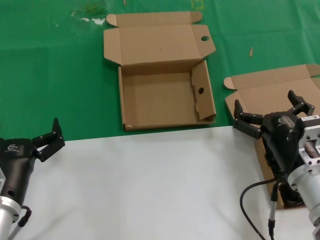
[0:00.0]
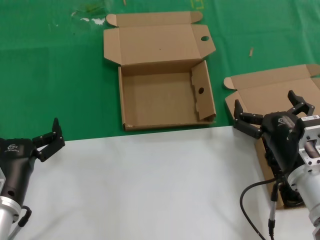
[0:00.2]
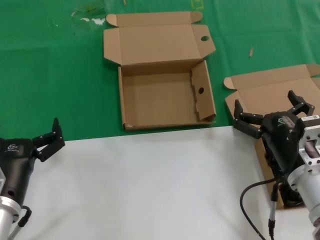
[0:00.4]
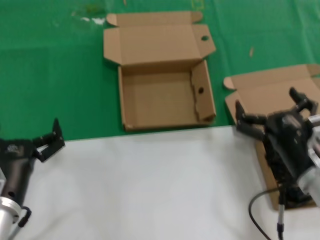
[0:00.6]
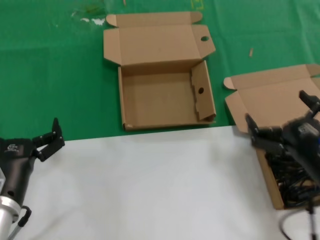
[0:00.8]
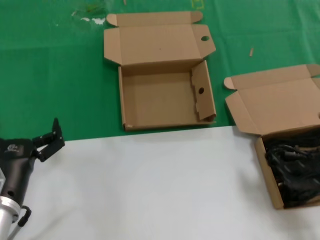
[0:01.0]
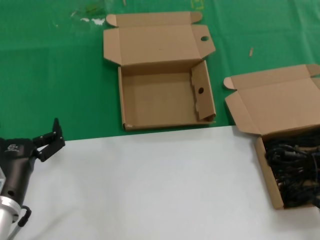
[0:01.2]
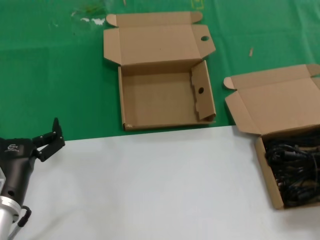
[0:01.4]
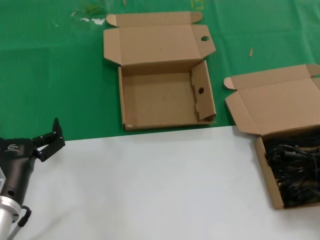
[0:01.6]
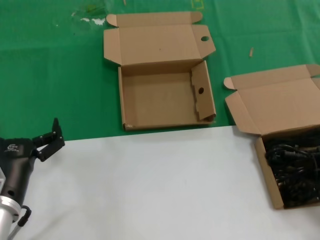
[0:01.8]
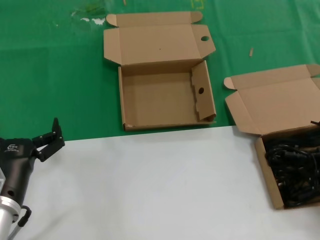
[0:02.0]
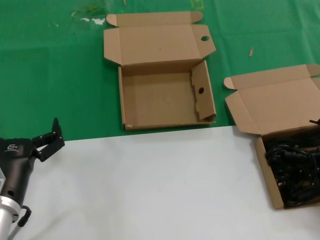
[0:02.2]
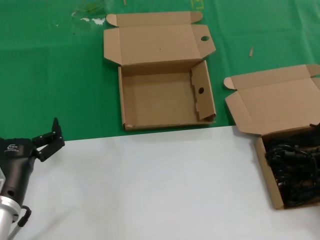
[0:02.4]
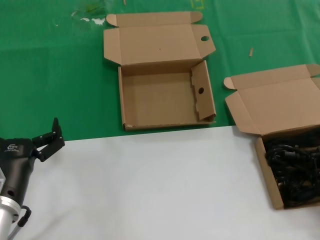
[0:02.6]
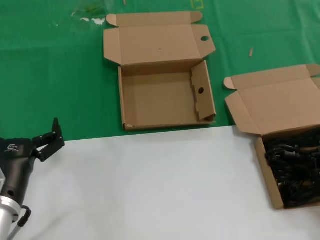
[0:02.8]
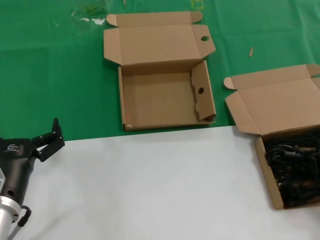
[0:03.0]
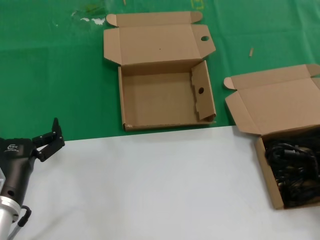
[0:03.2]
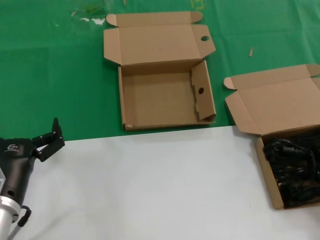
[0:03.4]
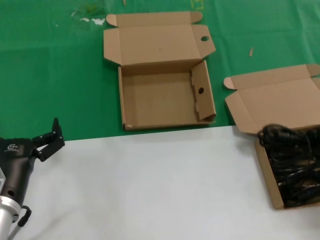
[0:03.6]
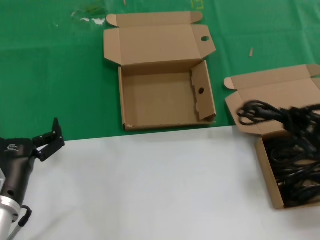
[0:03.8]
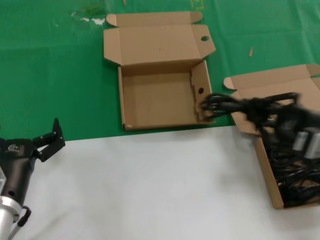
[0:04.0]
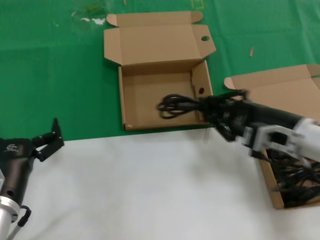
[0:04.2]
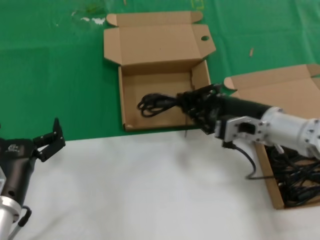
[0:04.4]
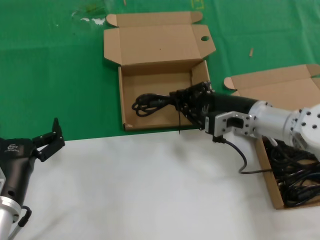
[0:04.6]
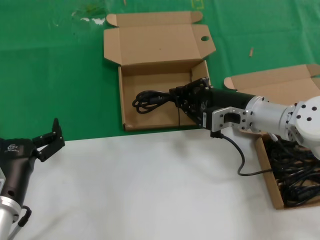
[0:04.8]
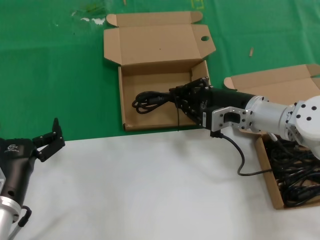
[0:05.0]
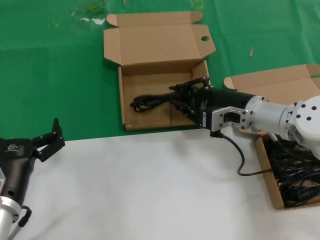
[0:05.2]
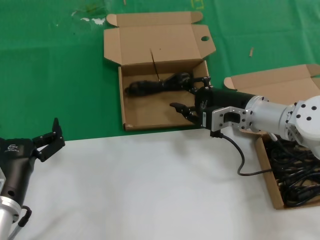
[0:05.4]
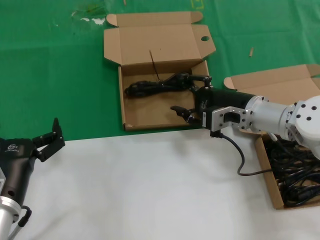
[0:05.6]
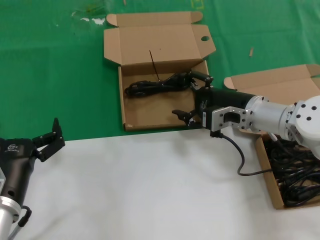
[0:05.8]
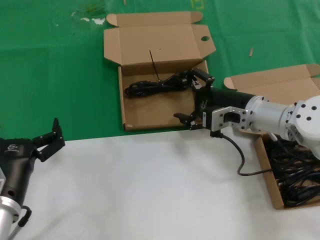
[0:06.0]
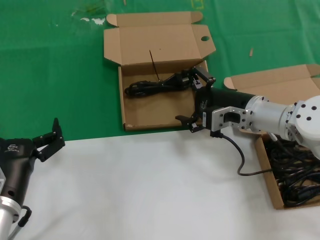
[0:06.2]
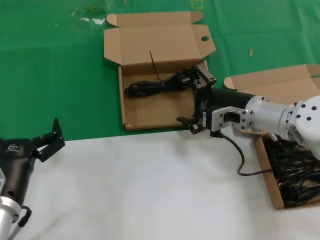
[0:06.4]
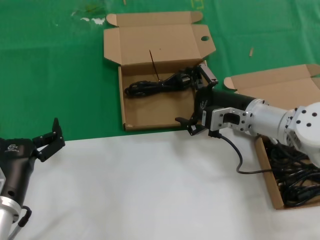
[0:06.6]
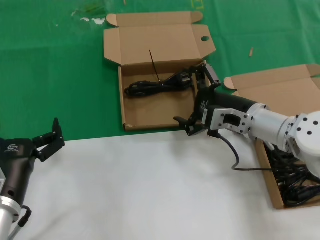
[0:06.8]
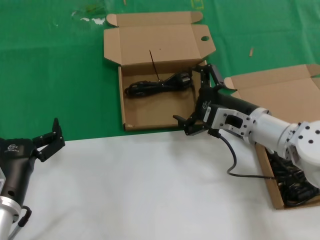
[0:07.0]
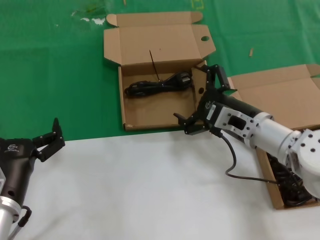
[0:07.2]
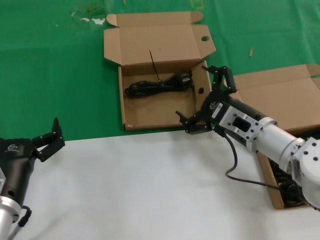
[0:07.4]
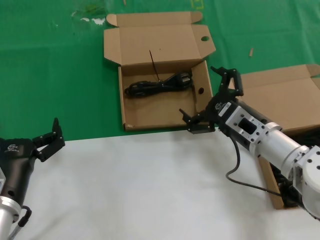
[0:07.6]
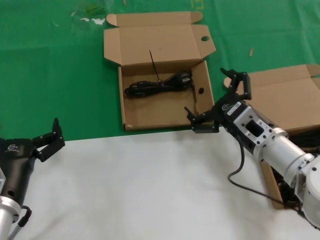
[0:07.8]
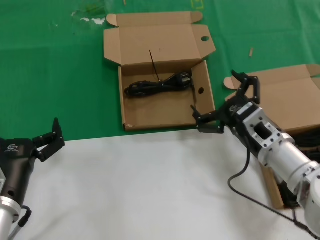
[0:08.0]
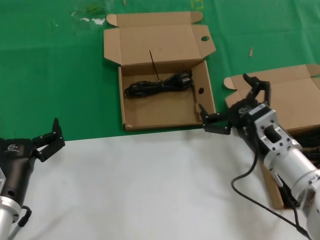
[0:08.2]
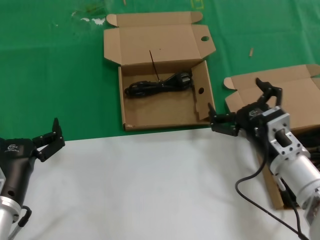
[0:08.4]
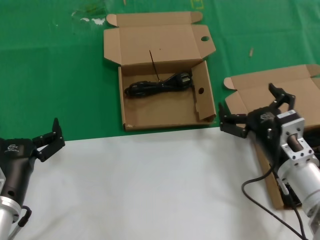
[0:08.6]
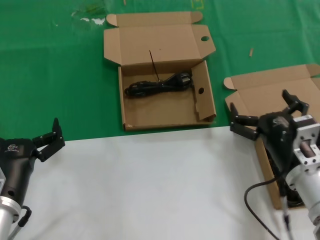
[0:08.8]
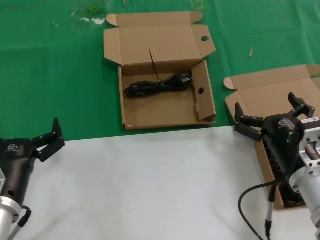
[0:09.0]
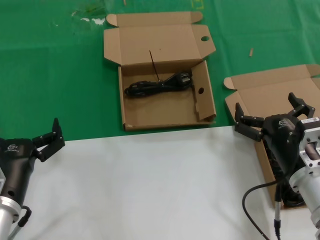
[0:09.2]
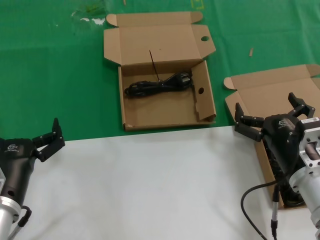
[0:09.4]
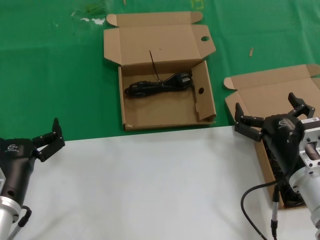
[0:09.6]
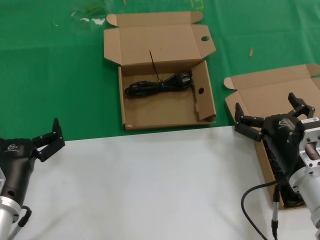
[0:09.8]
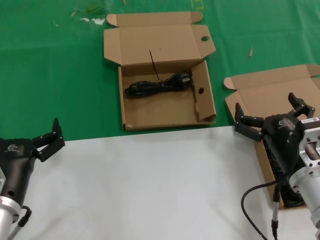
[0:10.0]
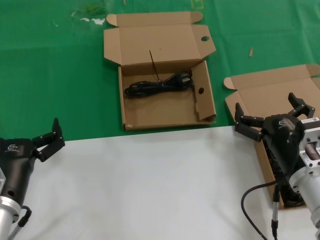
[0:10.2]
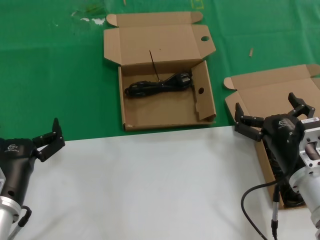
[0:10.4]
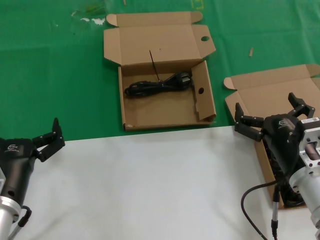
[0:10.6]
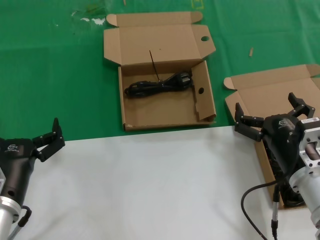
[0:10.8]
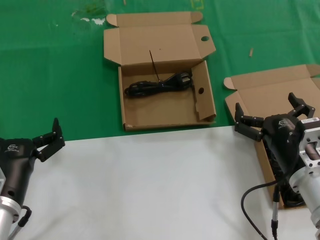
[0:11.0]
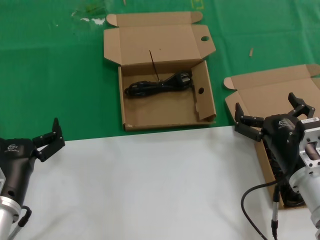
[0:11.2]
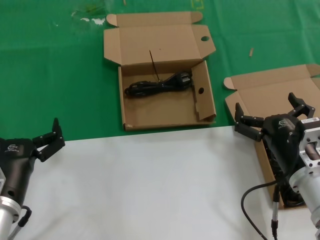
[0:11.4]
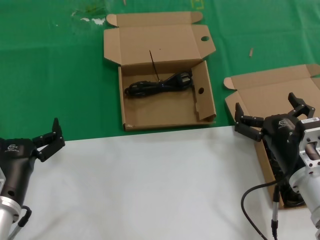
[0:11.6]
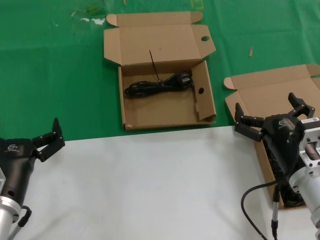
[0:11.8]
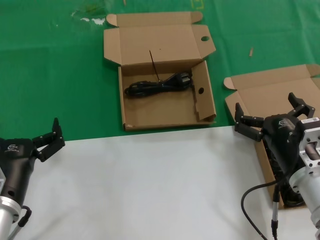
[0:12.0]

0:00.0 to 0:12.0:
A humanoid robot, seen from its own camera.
Task of the whole recording: take the parts from the box containing them and put them into an empty box.
Step, 0:00.0 to 0:03.2: Grasp the data cable.
Step, 0:03.4 to 0:06.4: Place the data cable in the another box.
0:00.0 to 0:01.6: The right hand shifts approximately 20 cm to the right and backward.
0:03.0 to 0:04.4: The right hand is displaced to the left and forward by some 25 cm.
0:04.4 to 0:06.0: The right hand shifts roughly 5 cm forward.
0:06.0 to 0:07.6: The right hand is displaced backward by approximately 5 cm.
0:07.6 to 0:09.0: The right hand moves backward, roughly 10 cm.
0:09.0 to 0:12.0: Both hands stay put.

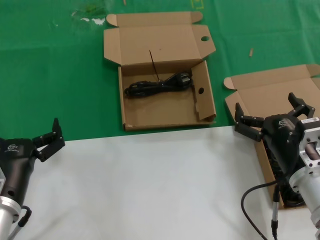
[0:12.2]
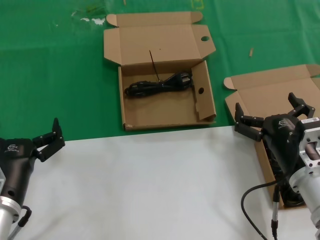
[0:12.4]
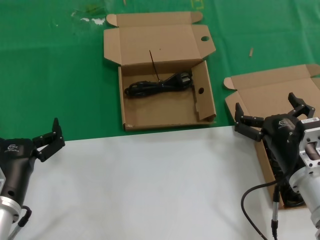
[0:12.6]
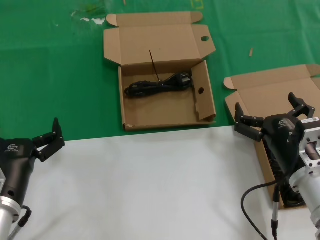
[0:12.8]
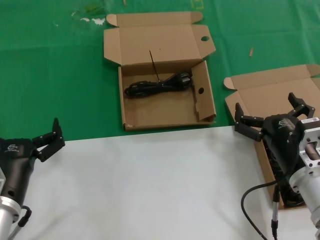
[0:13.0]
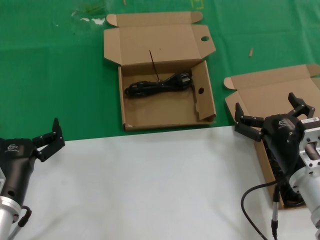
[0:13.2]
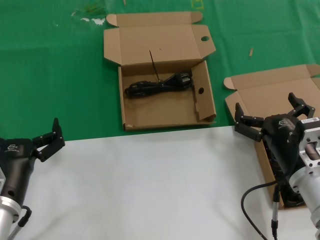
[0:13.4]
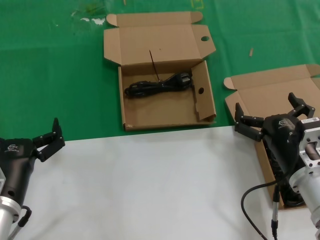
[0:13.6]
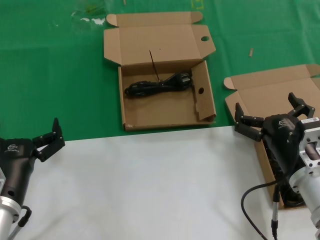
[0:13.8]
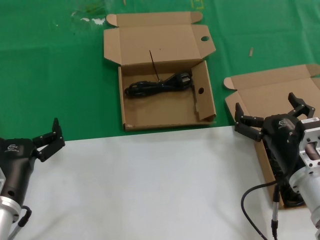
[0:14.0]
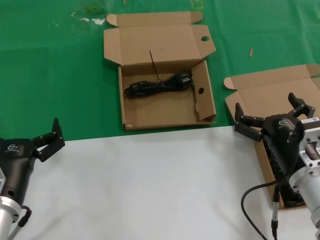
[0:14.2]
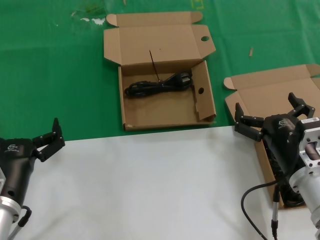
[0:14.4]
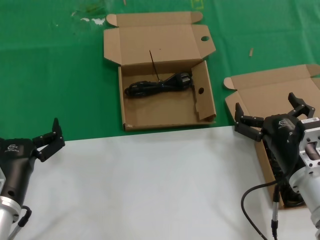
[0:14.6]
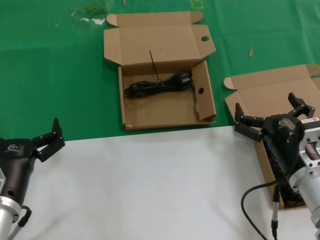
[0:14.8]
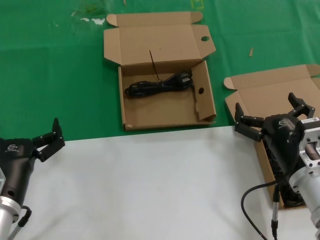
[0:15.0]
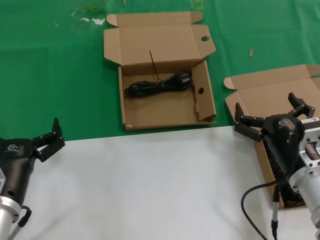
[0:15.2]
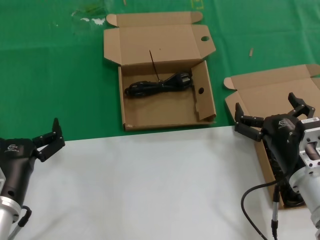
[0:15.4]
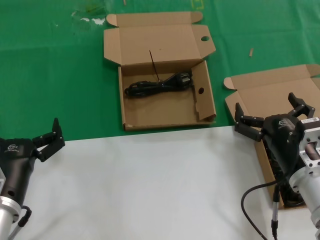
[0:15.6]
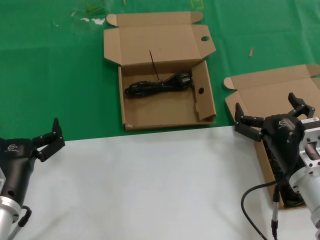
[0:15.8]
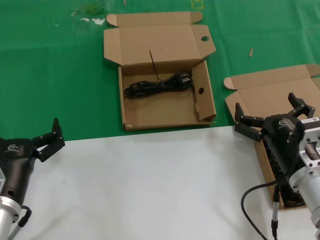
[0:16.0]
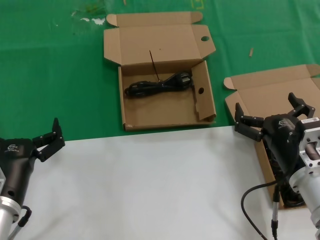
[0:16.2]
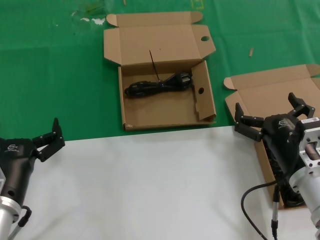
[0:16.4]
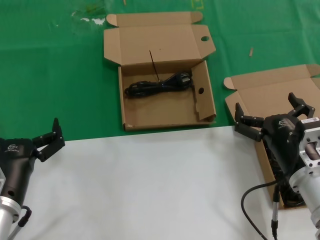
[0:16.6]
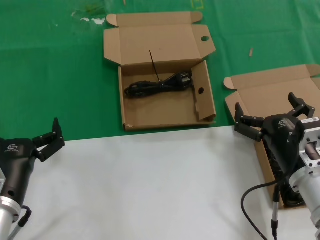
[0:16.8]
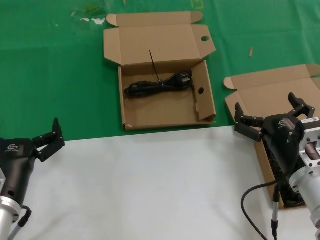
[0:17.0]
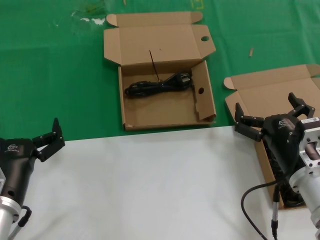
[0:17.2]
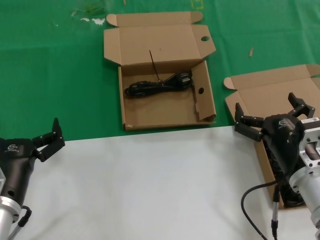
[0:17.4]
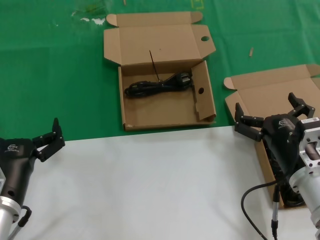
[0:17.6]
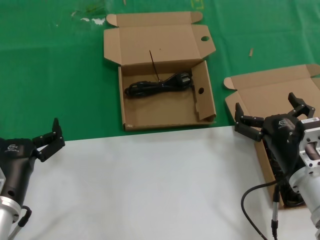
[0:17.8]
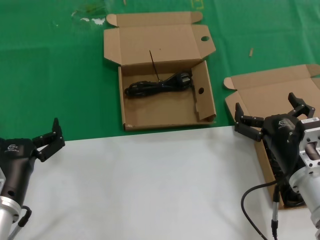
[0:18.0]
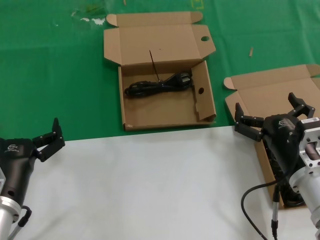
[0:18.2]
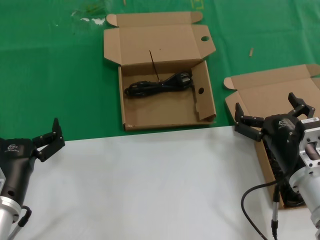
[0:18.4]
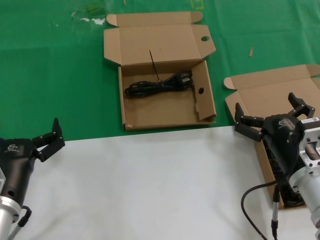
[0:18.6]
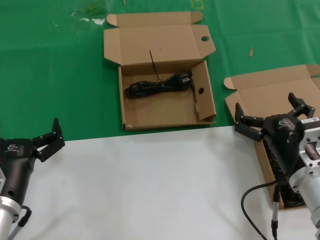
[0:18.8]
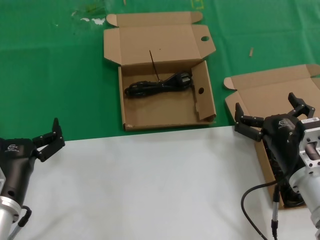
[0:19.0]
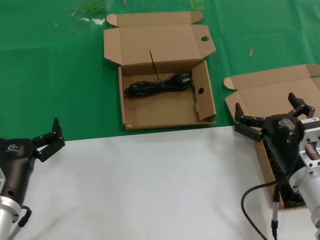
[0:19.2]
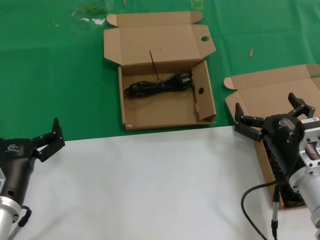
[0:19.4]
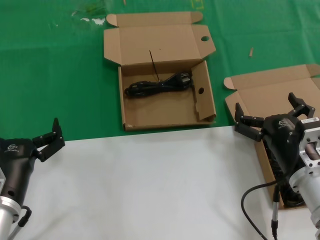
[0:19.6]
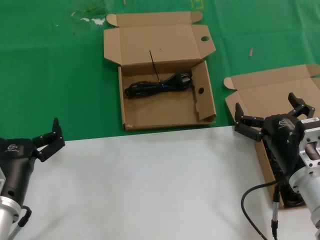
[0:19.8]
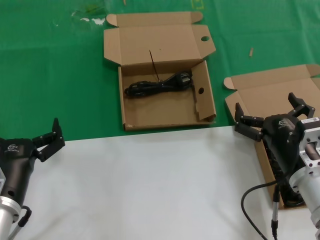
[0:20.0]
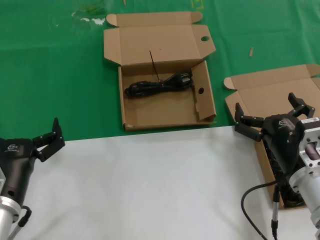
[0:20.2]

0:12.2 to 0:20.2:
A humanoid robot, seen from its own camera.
Task of the whole recording: take the parts from the box containing them and put them into an empty box.
0:12.2 to 0:20.2: The two hands keep their place.

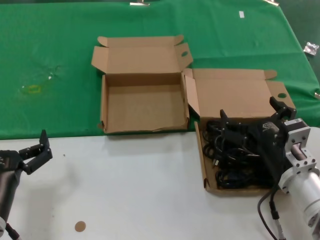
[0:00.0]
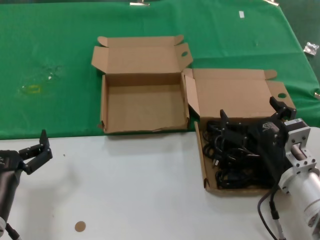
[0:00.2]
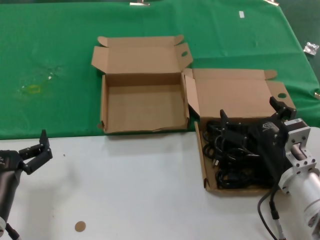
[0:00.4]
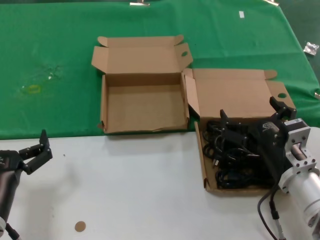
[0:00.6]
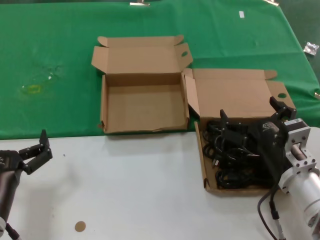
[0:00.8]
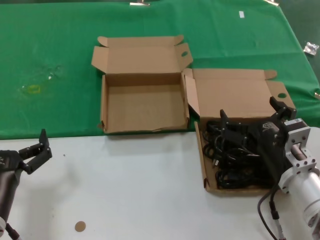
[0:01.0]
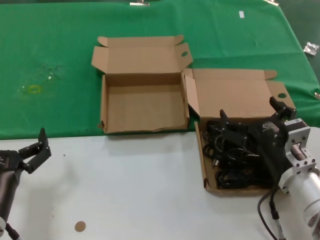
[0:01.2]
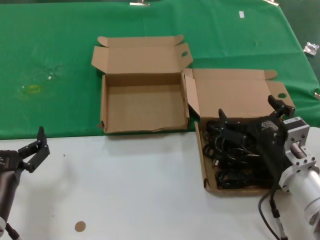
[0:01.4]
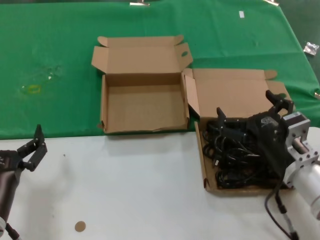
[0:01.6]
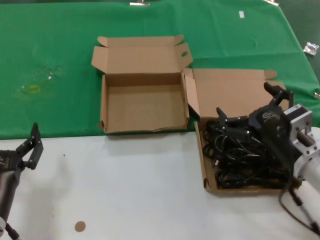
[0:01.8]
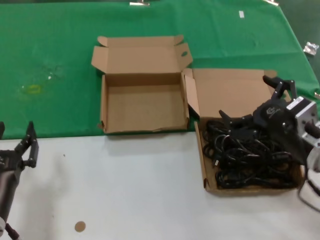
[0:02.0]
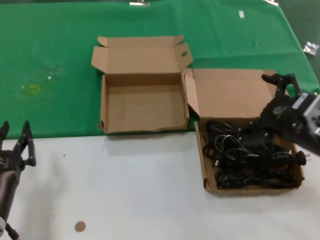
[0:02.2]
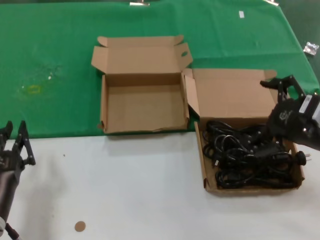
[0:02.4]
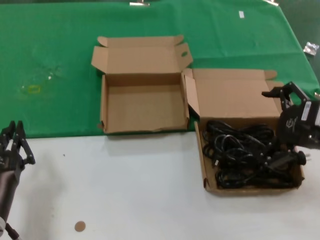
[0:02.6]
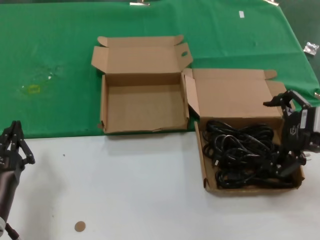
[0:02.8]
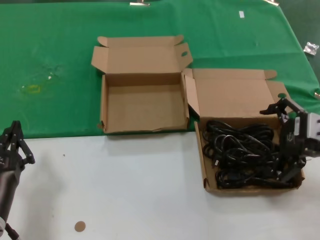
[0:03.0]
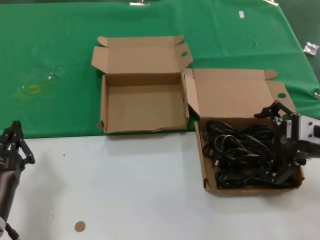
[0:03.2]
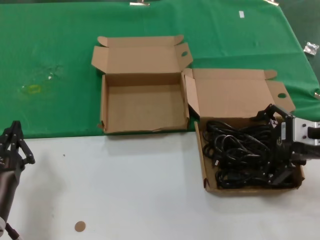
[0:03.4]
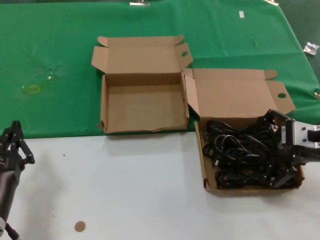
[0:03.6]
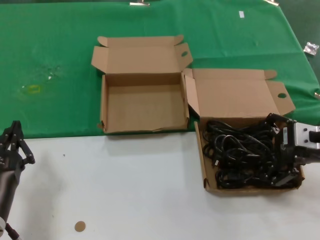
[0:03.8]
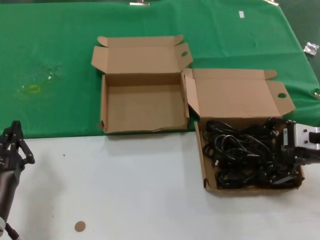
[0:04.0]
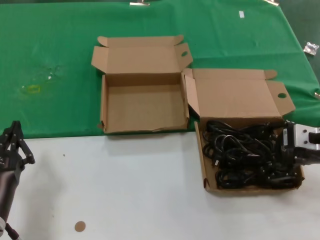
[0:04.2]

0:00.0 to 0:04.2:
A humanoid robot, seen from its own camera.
Task of the whole recording: take the parts from the box containing them and put them into an empty box.
0:00.0 to 0:01.4: Neither hand changes place.
0:01.4 to 0:02.8: The right hand moves upward and to the right, approximately 20 cm.
0:02.8 to 0:04.2: The right hand moves approximately 5 cm.
